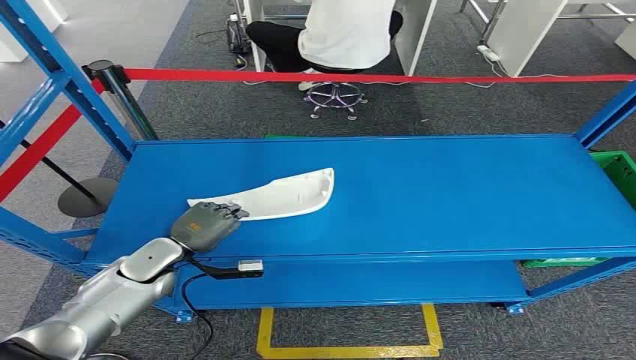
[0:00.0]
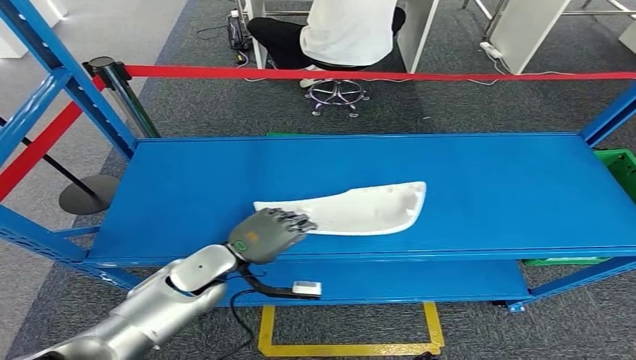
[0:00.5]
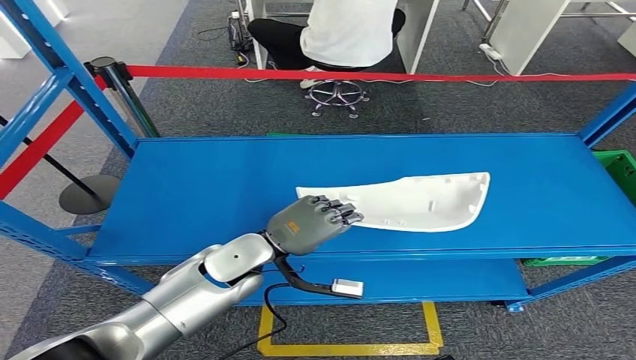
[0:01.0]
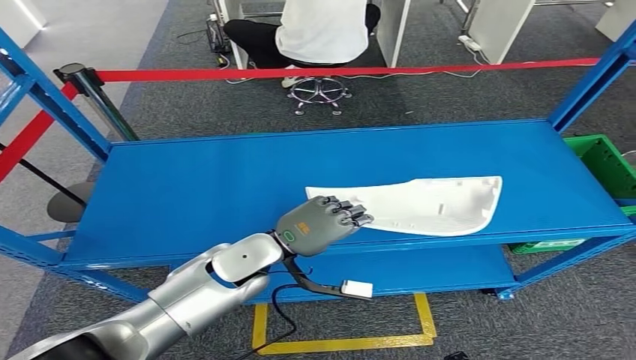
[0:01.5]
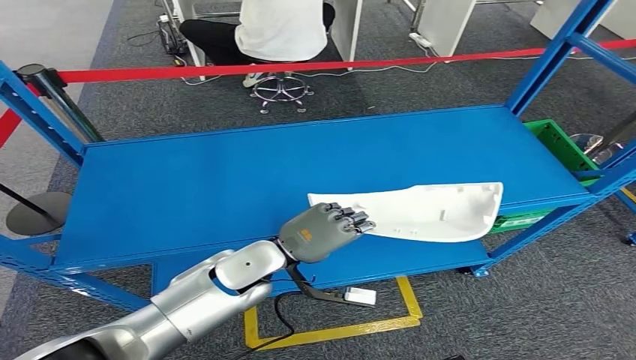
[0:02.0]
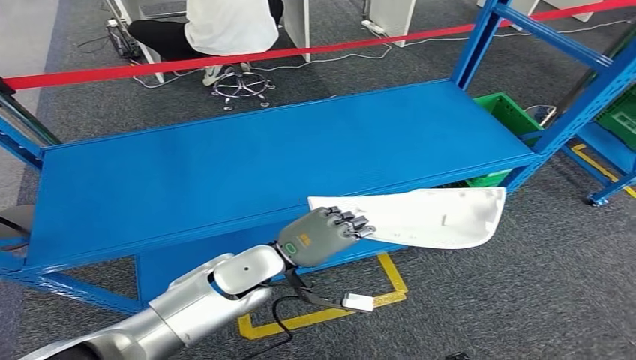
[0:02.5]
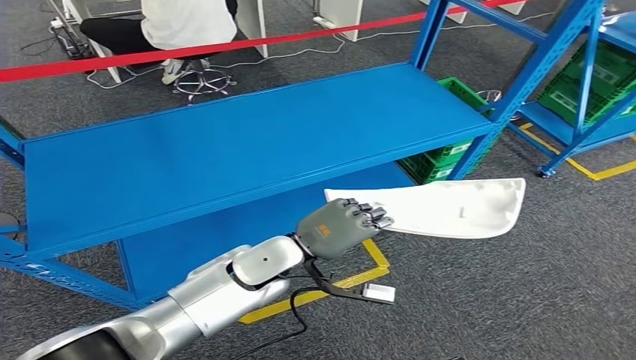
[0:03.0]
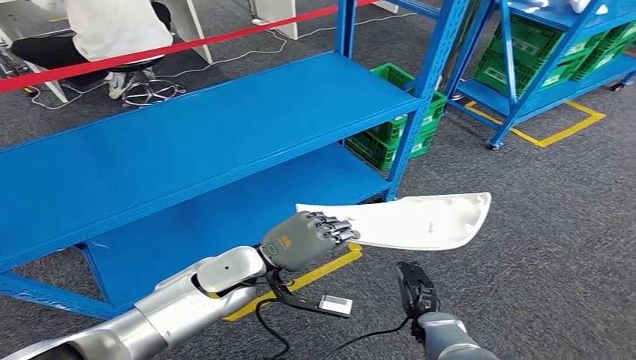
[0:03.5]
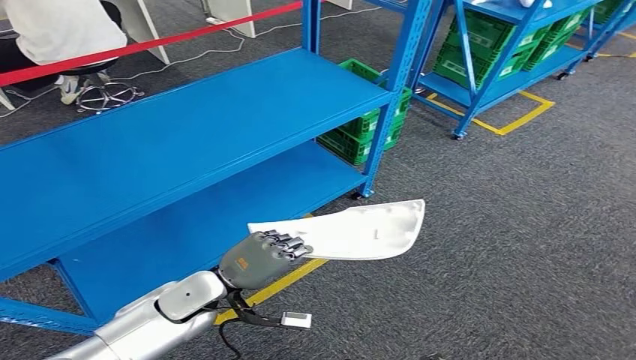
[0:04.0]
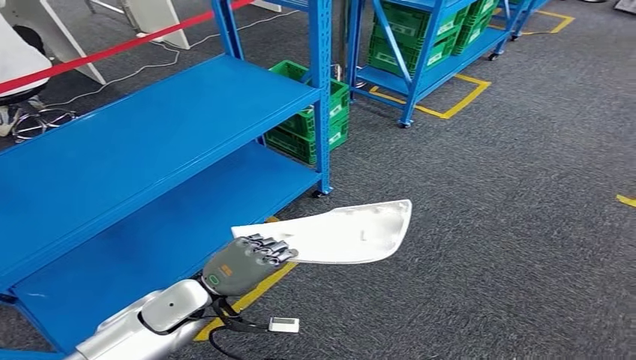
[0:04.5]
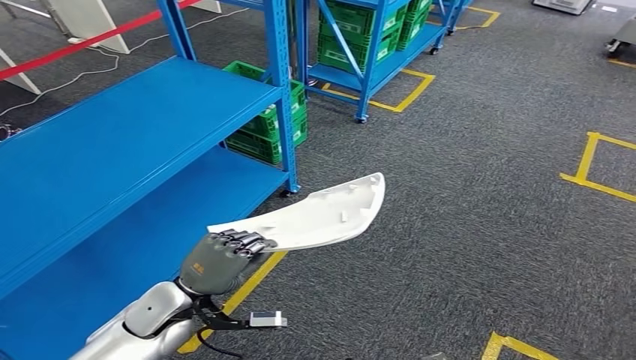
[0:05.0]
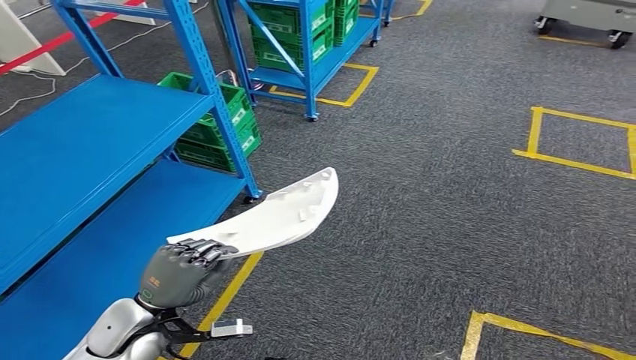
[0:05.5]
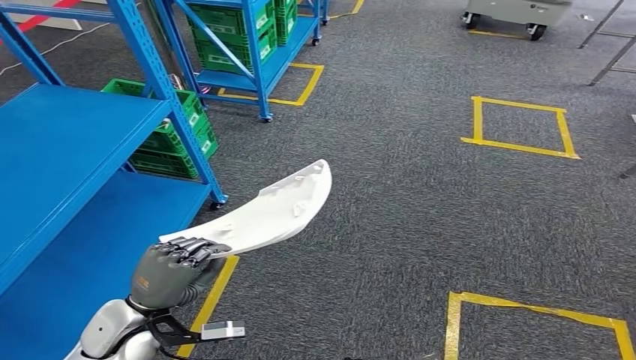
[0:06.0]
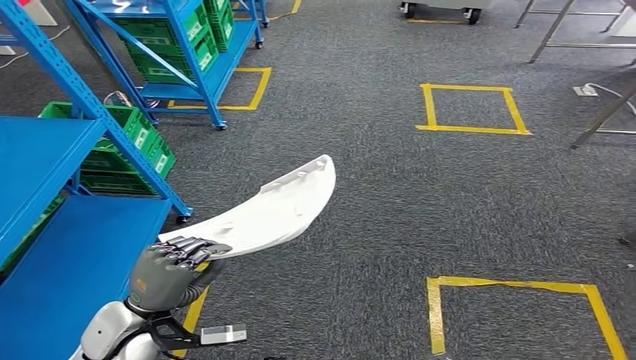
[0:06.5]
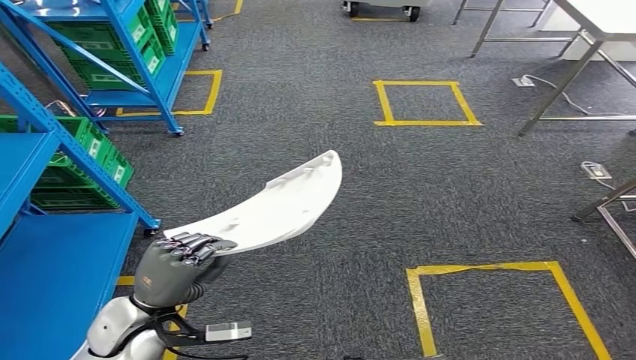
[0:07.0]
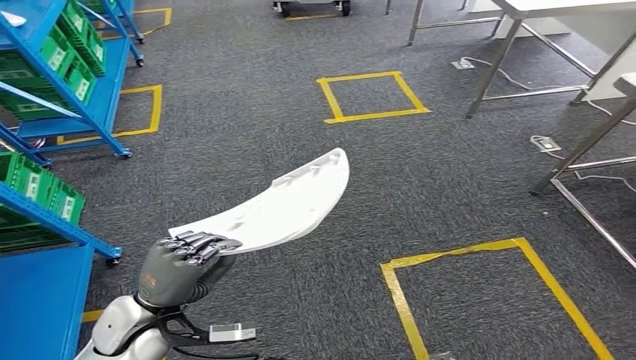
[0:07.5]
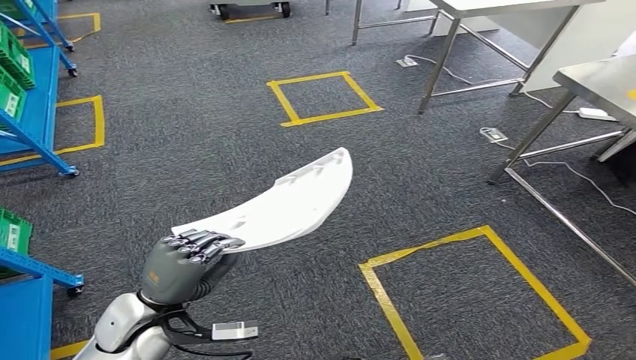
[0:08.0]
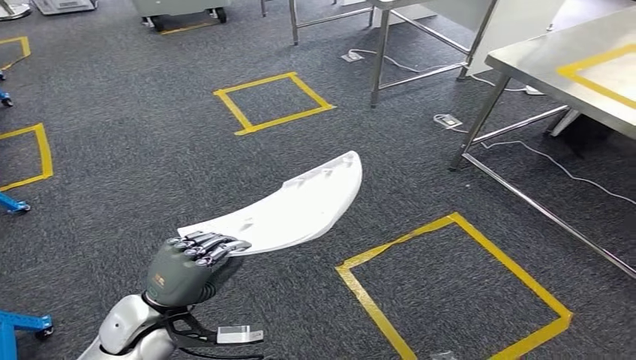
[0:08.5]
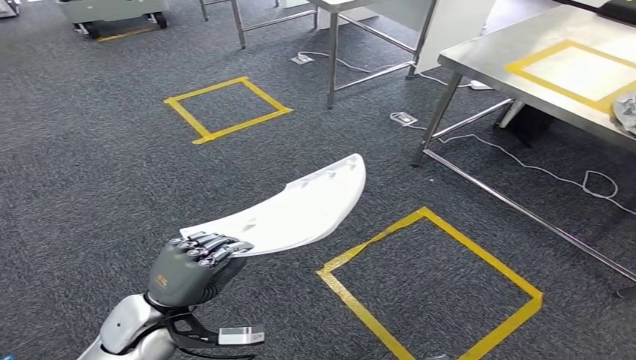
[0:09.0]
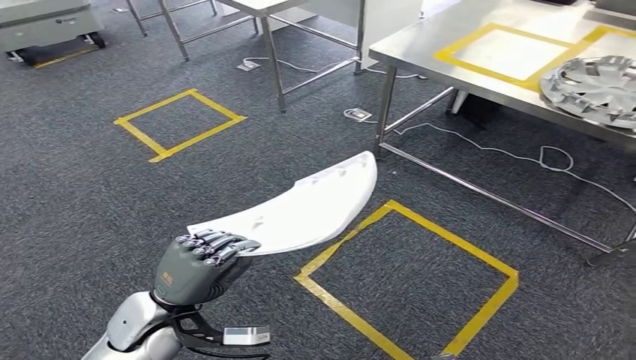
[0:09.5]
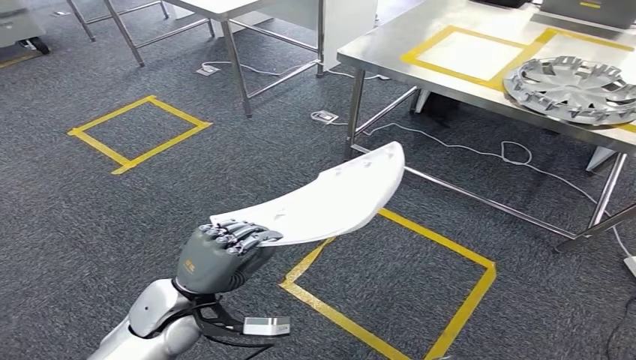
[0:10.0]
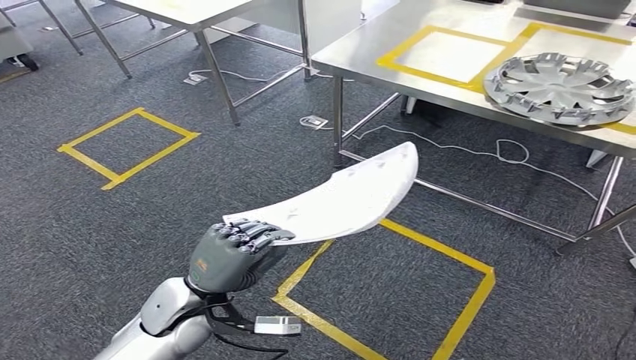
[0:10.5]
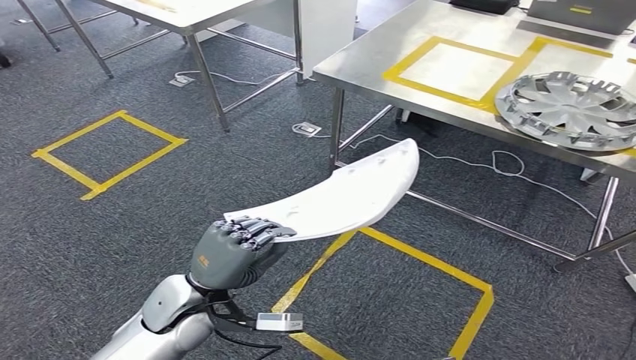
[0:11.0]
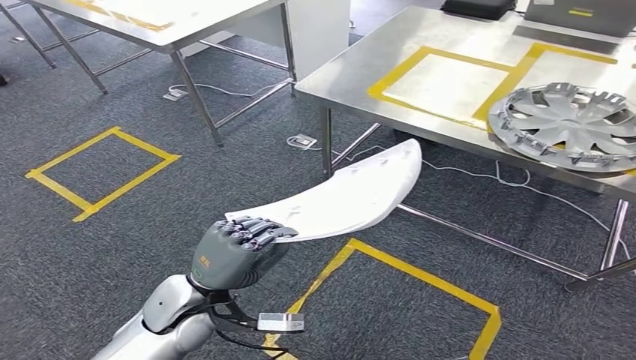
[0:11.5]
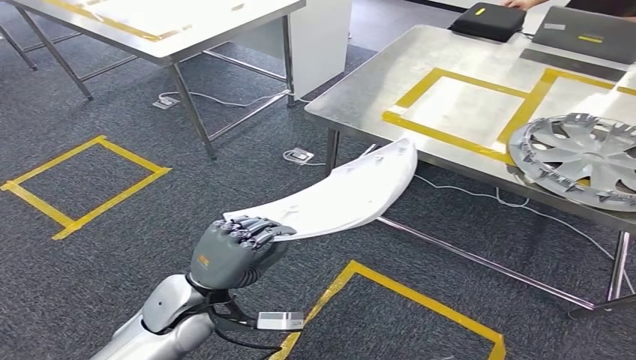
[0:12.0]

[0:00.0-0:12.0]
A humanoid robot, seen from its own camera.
Step, 0.0 to 2.0 s: Pick up the small parts from the shelf.

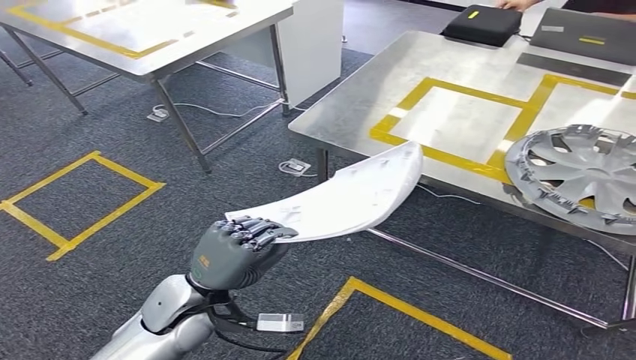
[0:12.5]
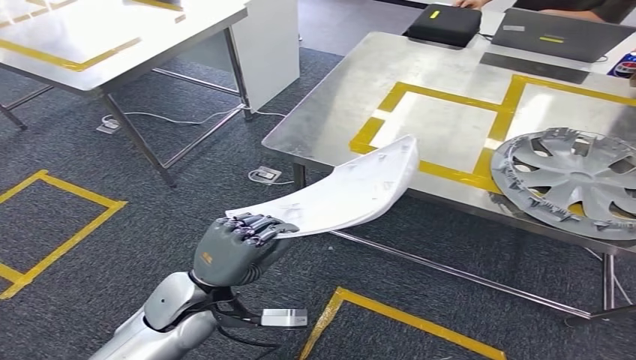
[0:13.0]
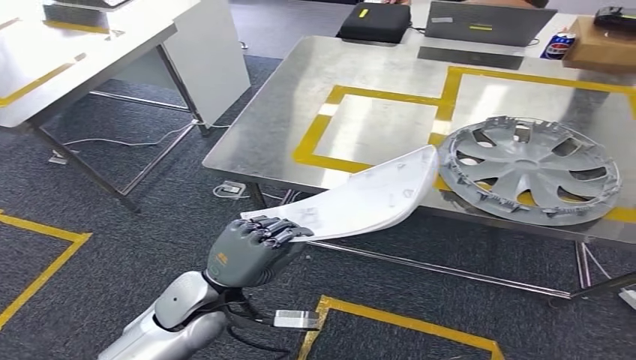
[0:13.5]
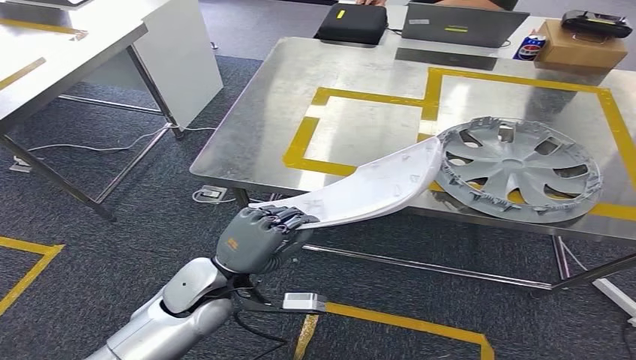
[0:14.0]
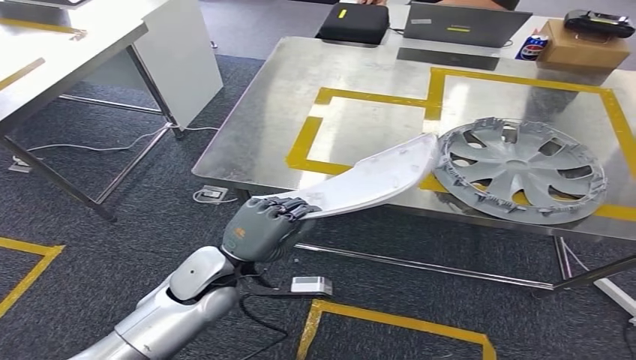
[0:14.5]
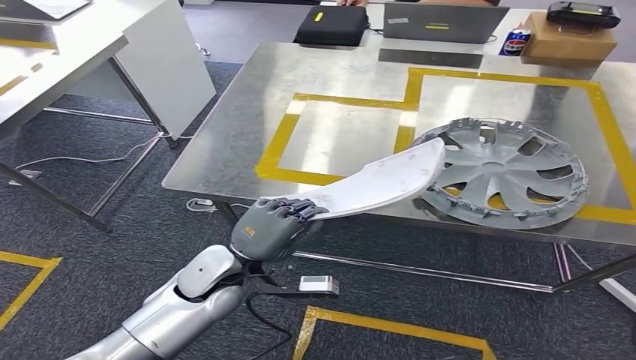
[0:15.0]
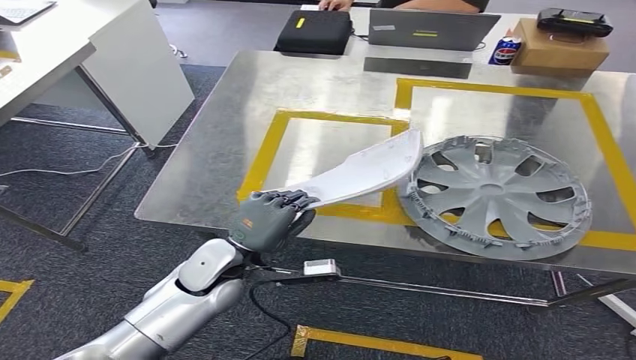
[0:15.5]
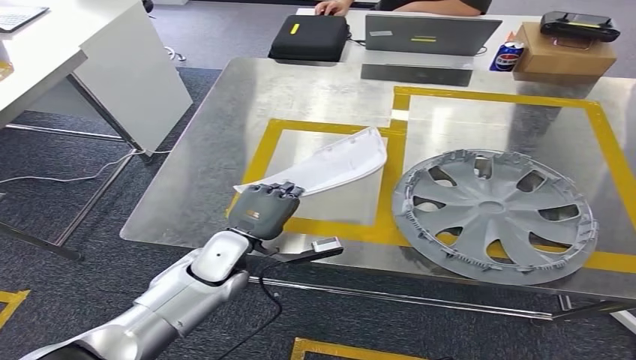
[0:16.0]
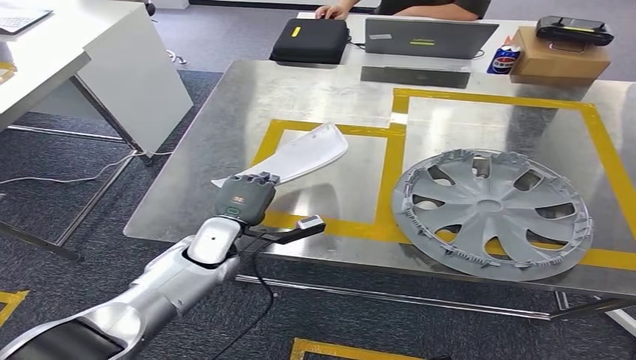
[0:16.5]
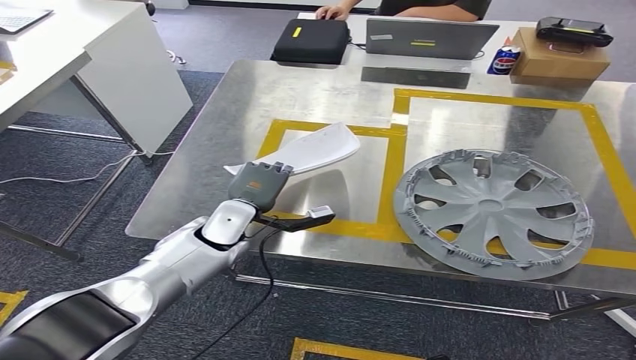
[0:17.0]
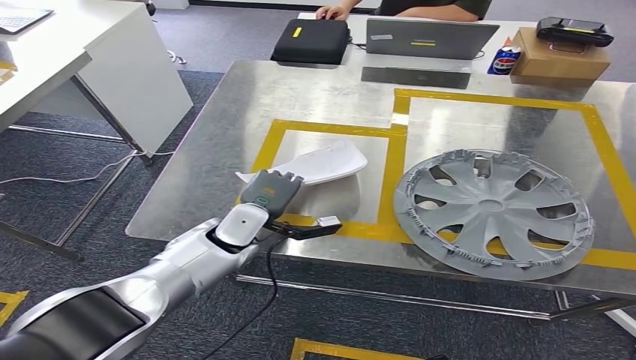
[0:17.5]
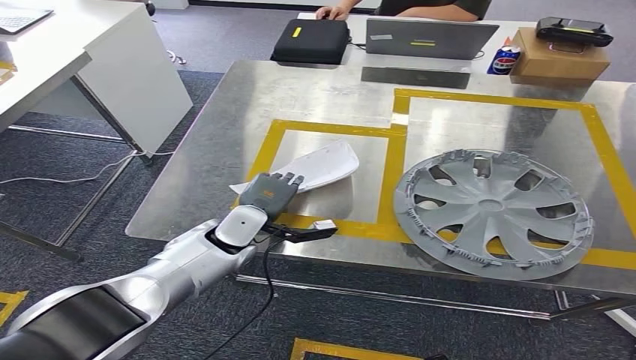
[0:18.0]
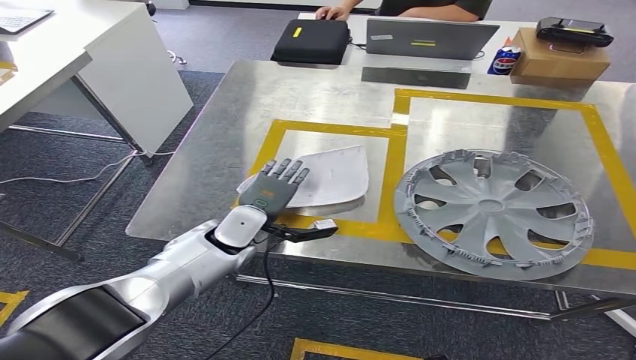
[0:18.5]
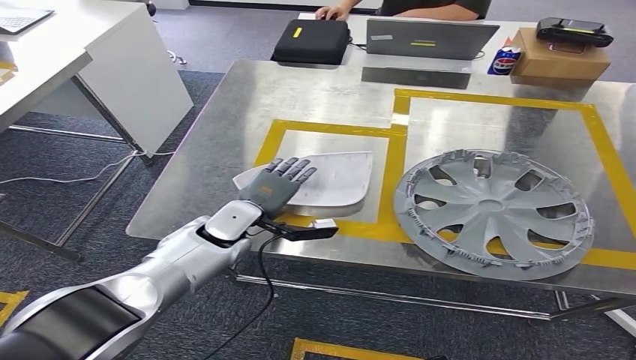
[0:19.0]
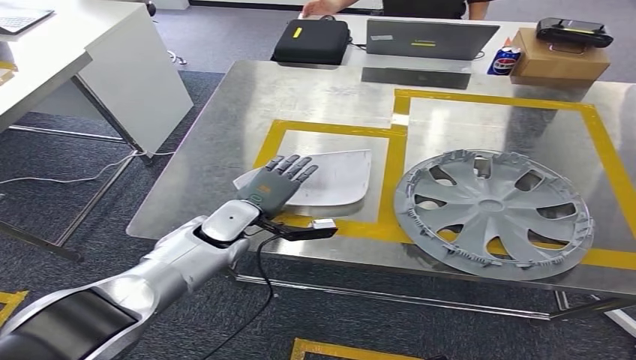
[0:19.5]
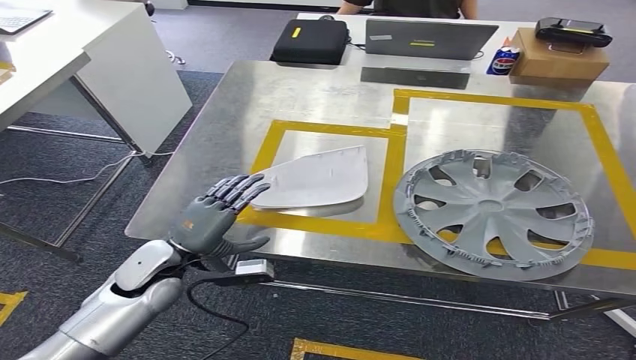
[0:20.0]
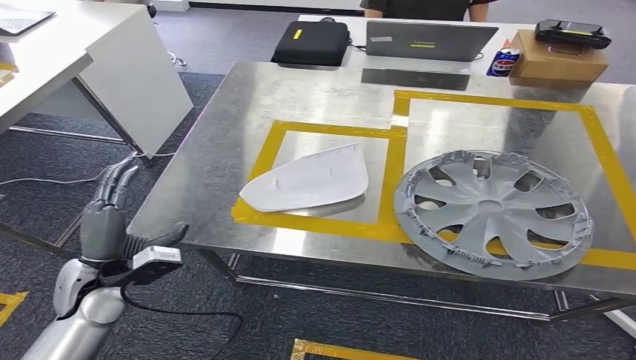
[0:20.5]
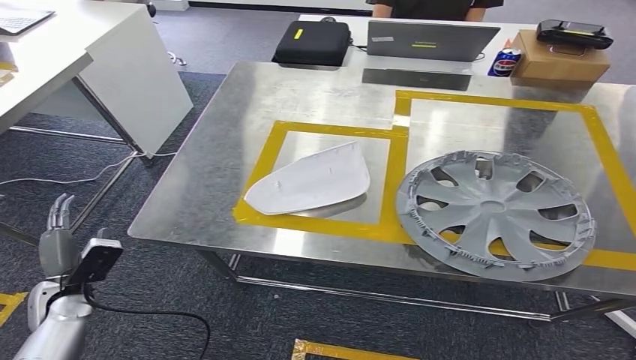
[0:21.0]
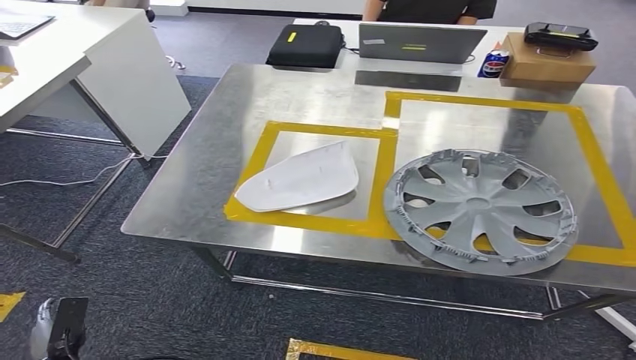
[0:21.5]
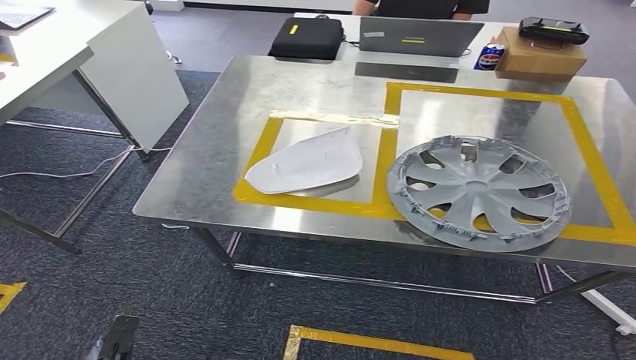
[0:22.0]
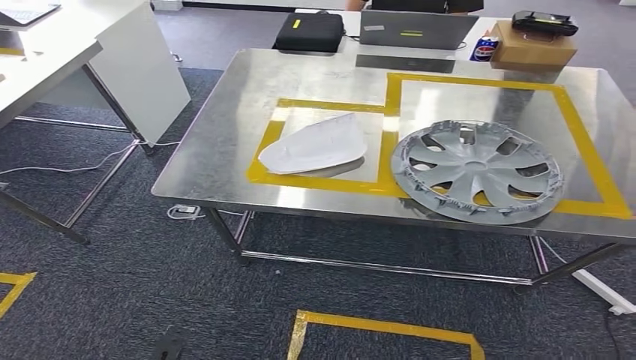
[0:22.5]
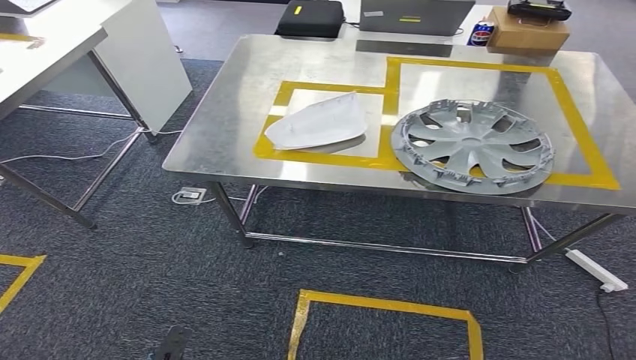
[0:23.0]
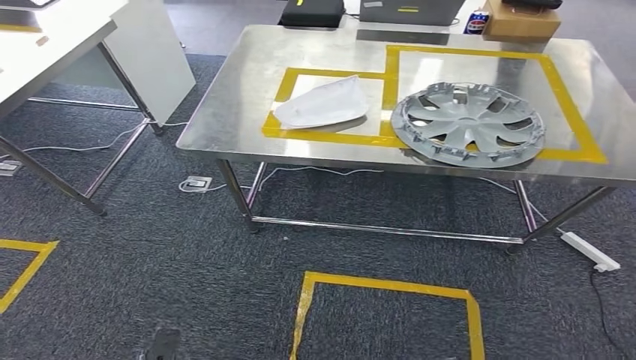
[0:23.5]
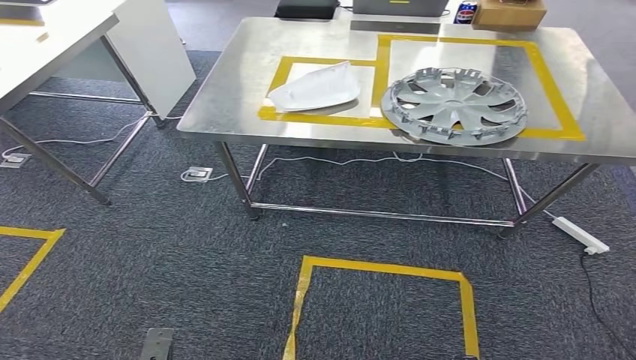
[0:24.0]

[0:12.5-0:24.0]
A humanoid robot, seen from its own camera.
Step, 14.0 to 22.0 s: Insert the small parts into the corresponding slots on the workbench.
18.5 to 20.0 s: The left hand travels to the left and backward by about 15 cm.
